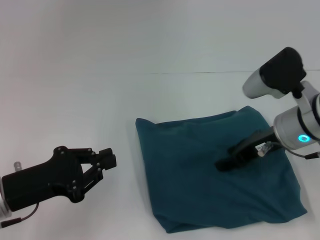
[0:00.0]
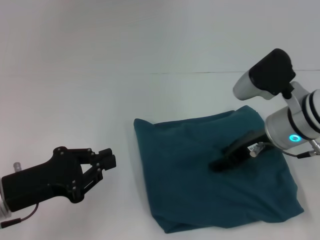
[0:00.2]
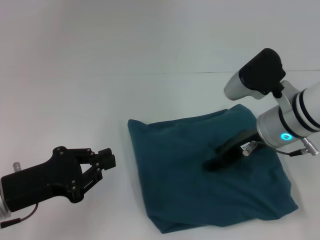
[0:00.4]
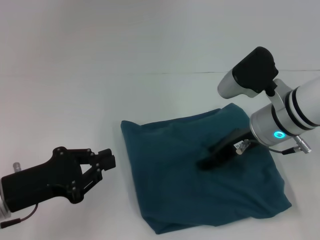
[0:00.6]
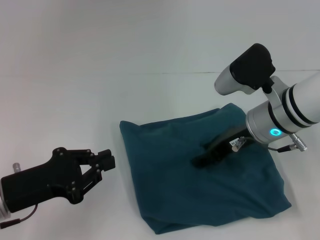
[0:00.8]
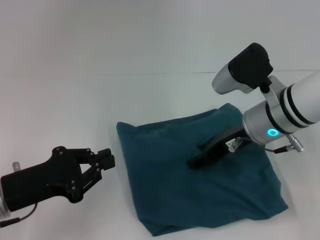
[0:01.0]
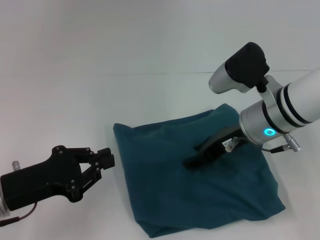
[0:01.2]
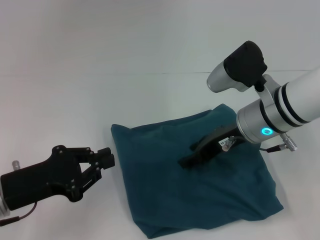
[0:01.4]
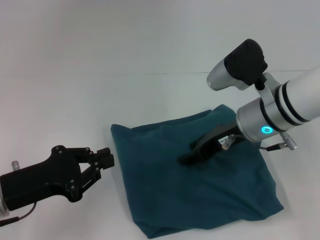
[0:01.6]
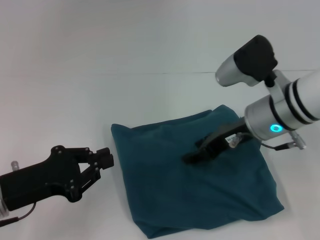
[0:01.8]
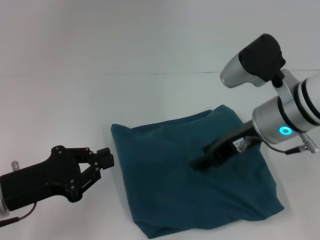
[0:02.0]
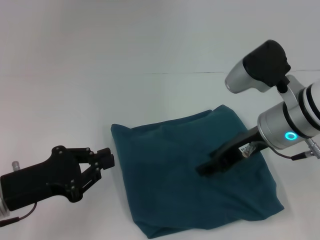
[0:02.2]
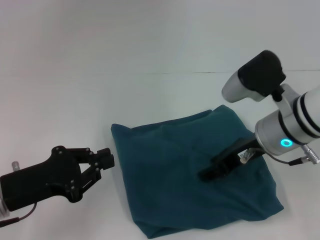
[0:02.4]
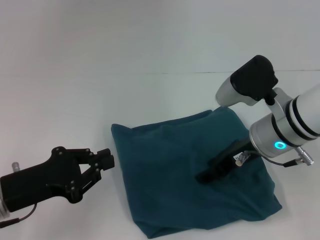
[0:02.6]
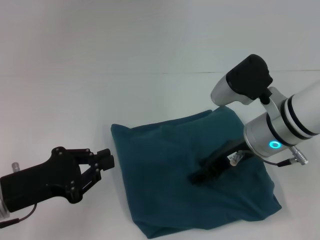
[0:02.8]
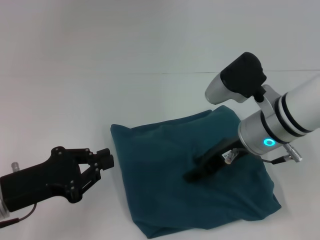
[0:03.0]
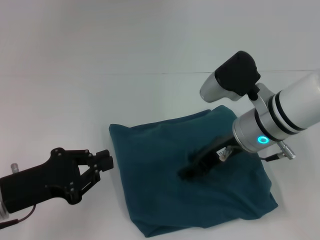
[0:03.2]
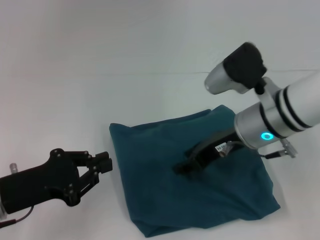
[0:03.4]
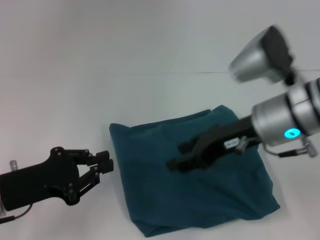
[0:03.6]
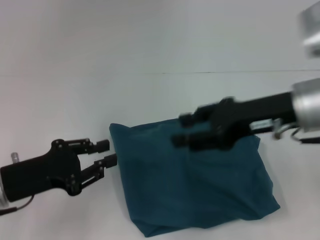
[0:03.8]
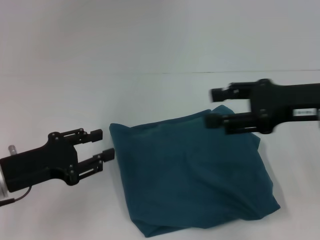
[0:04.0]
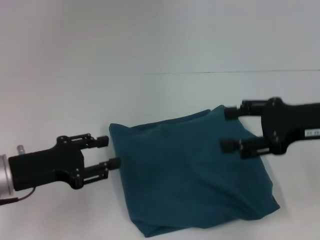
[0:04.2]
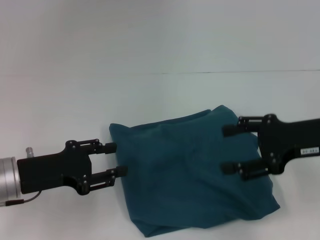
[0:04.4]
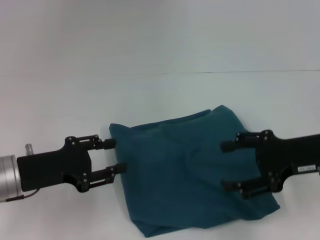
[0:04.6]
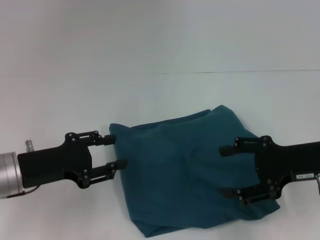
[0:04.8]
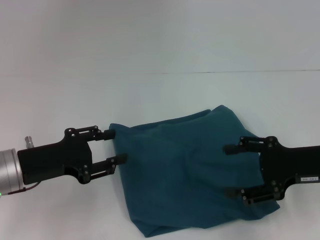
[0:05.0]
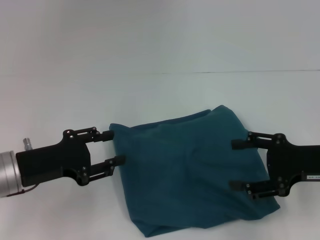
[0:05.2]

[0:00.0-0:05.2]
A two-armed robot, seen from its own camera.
0:01.8 to 0:03.4: There are only small adjustments of the grippers.
0:03.4 to 0:05.2: The right gripper moves to the right and backward, approximately 15 cm; the left gripper opens up.
